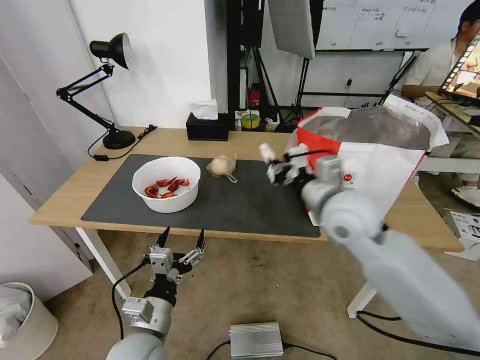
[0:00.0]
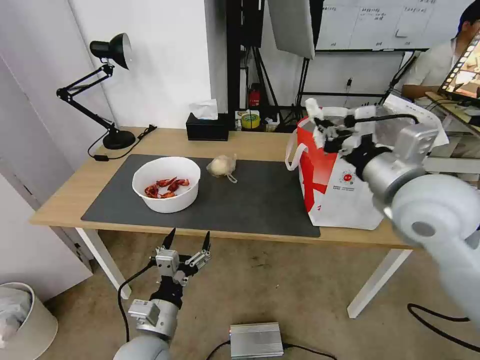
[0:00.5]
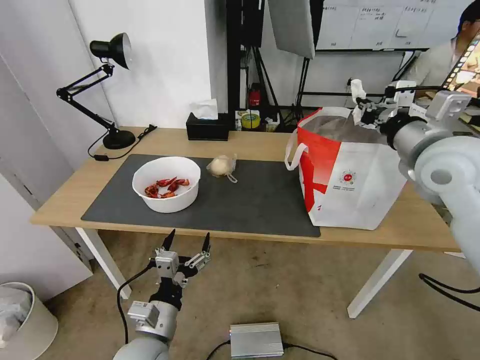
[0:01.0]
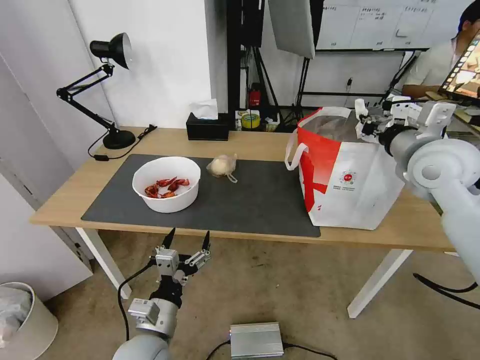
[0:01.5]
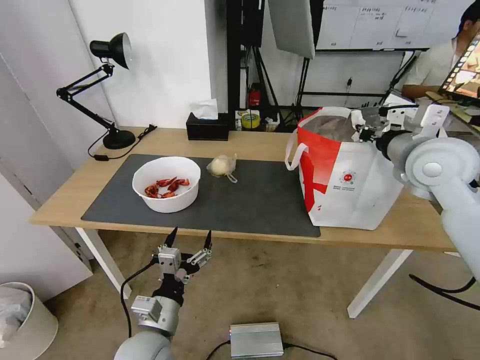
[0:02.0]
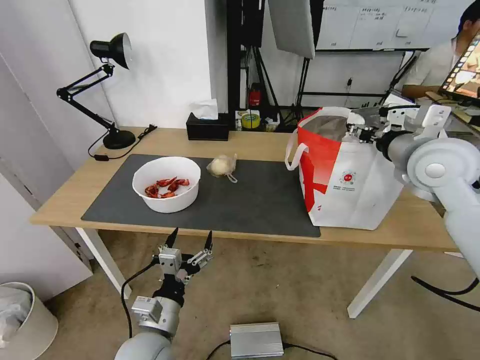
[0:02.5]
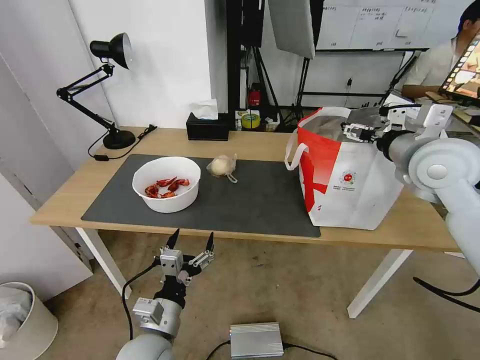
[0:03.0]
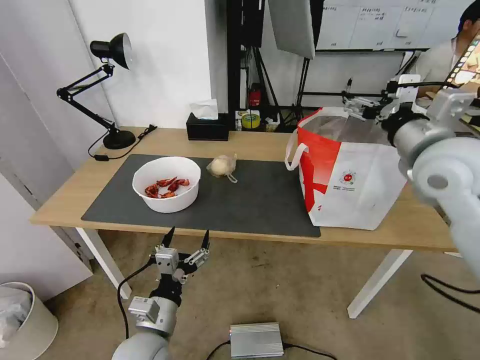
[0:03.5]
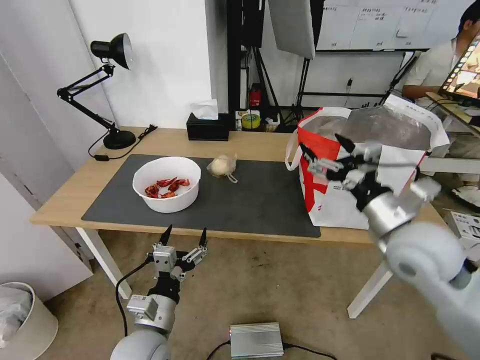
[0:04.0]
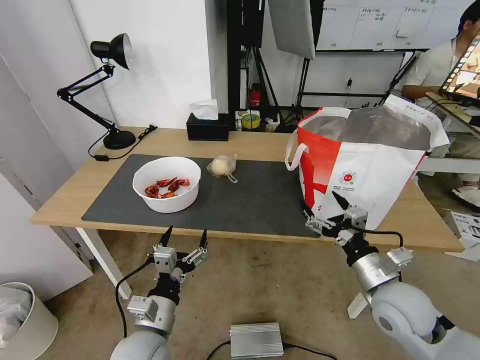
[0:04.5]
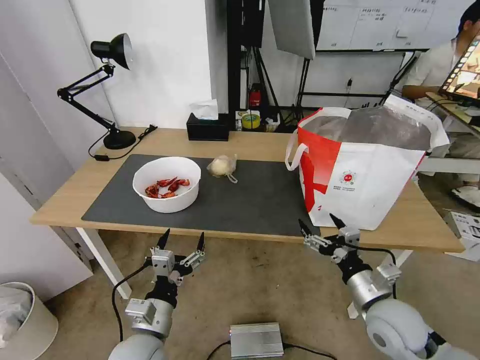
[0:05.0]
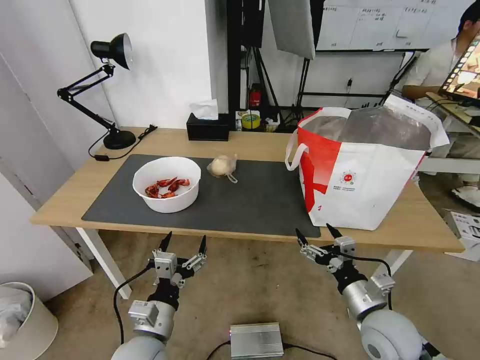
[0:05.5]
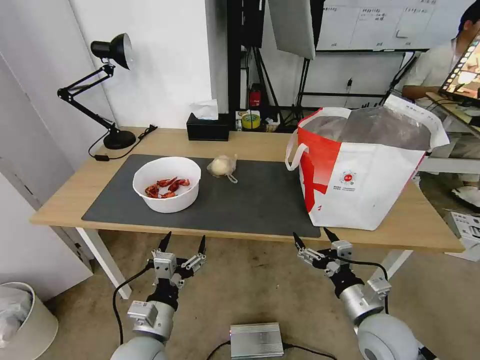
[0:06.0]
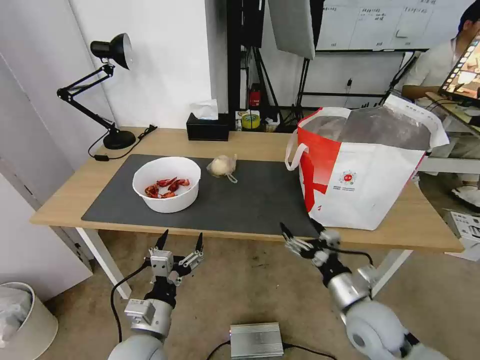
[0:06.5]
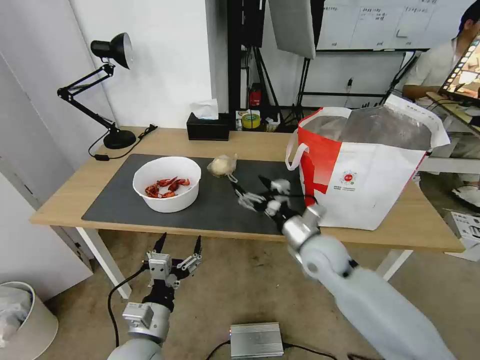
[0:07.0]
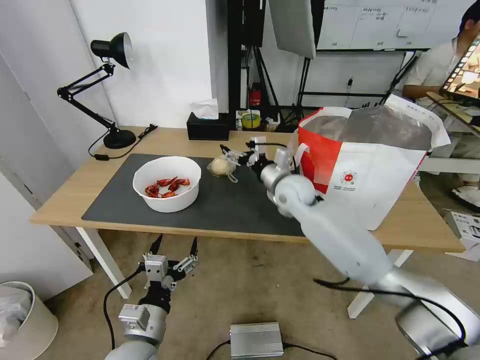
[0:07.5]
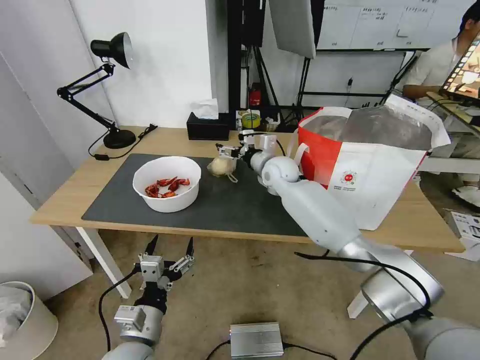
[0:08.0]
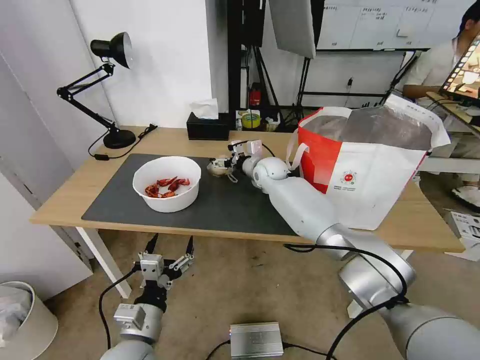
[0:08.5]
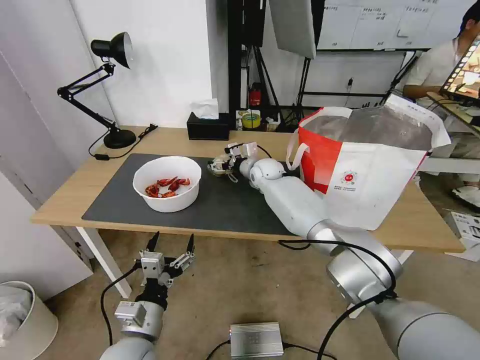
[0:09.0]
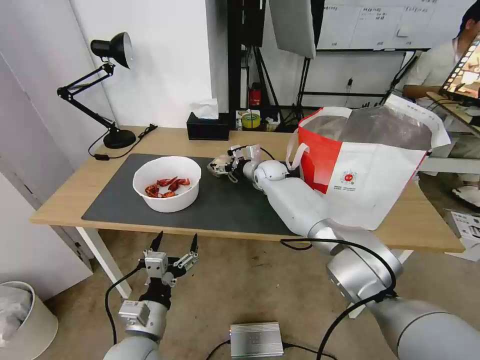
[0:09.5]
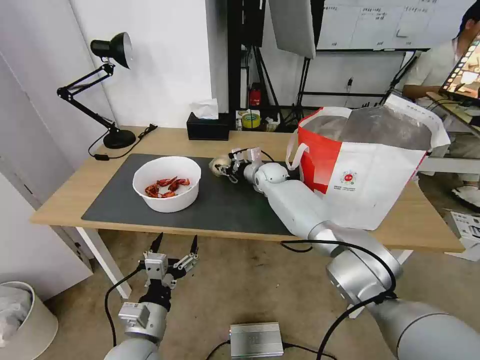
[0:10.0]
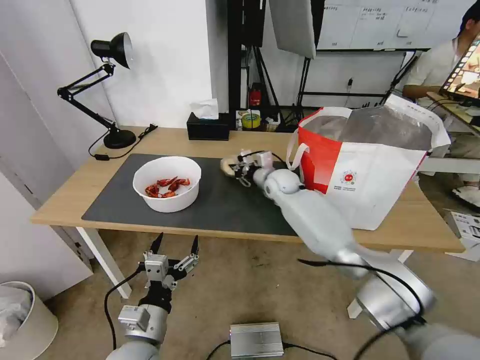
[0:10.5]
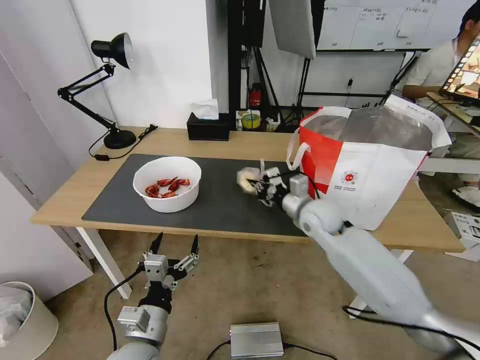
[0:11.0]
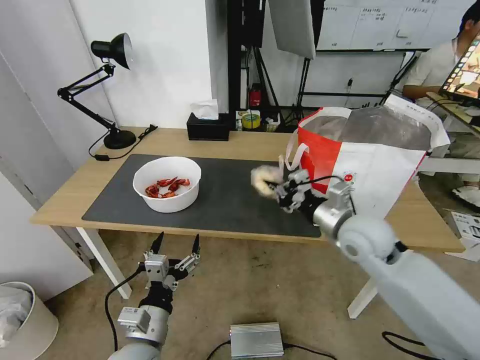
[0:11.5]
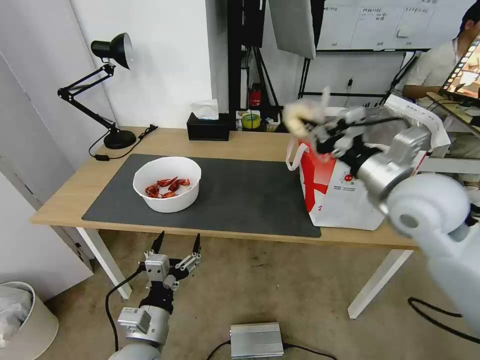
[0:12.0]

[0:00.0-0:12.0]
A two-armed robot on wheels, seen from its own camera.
Task of the whole recording: Pick up the trash from the table and place it into the takeout bag.
0:00.0 to 0:02.0: The right gripper travels to the right and upward by approximately 20 cm.
0:02.0 to 0:04.0: The right gripper travels backward and downward by some 15 cm, and opens.
0:04.0 to 0:06.0: The right gripper shifts some 20 cm downward and backward.
0:06.0 to 0:08.0: The right gripper shifts some 40 cm forward and to the left.
0:08.0 to 0:10.0: The right gripper is displaced forward and downward by about 10 cm, and closes its fingers.
0:10.0 to 0:12.0: The right gripper travels backward, upward and to the right by roughly 40 cm, and closes its fingers.

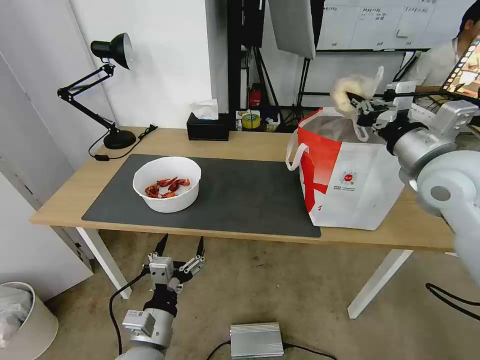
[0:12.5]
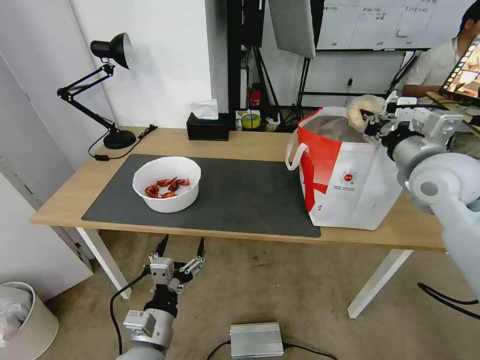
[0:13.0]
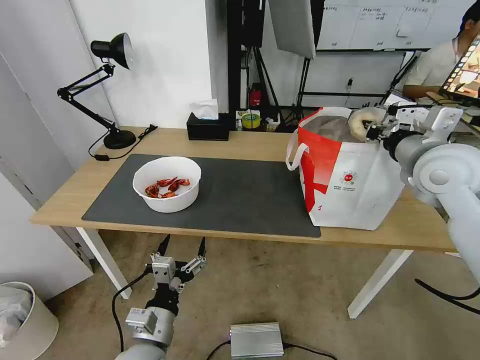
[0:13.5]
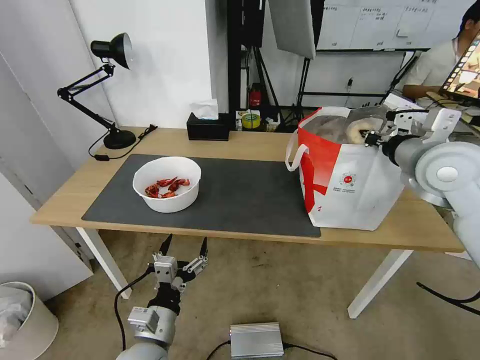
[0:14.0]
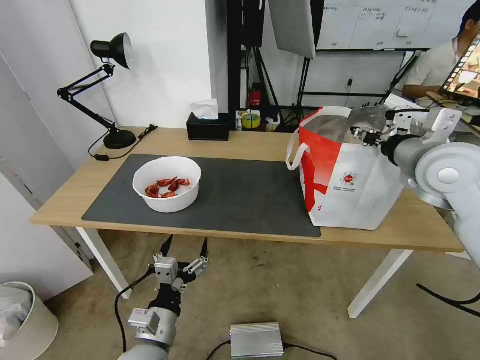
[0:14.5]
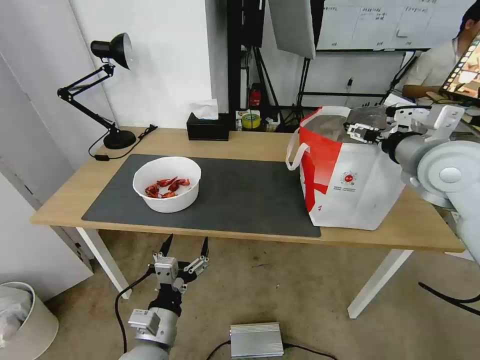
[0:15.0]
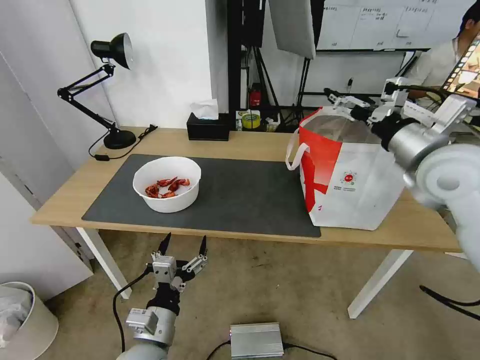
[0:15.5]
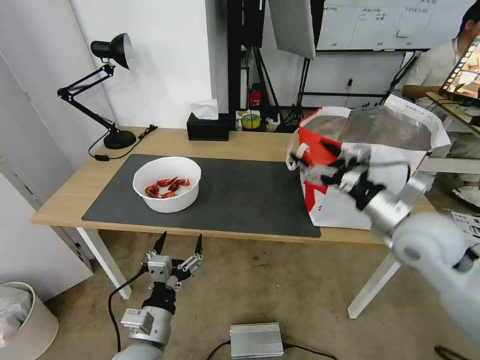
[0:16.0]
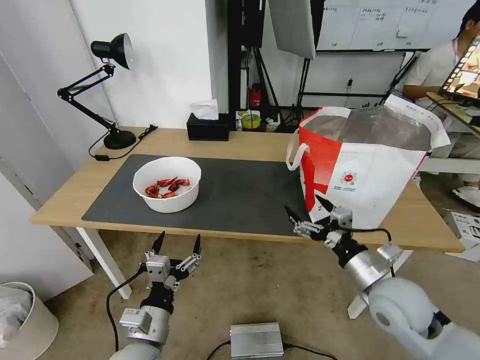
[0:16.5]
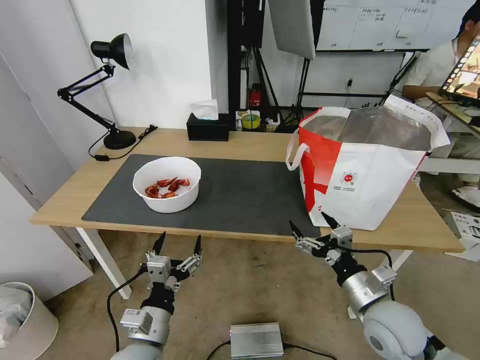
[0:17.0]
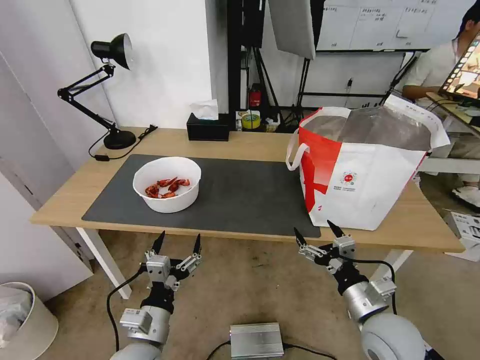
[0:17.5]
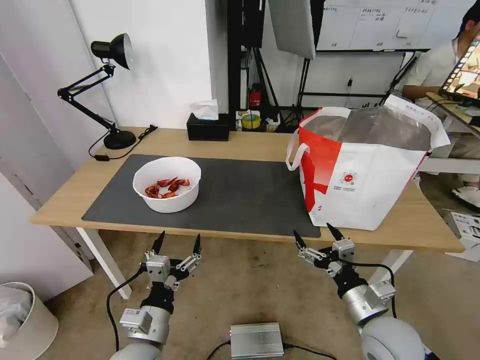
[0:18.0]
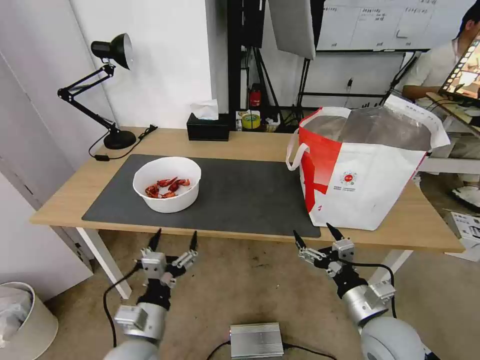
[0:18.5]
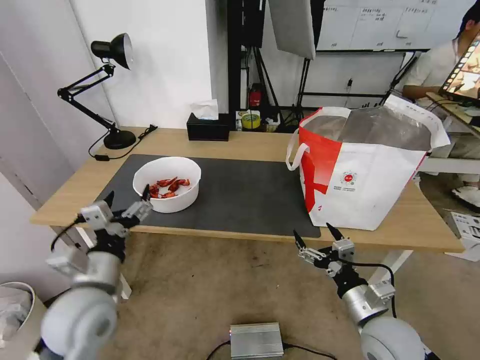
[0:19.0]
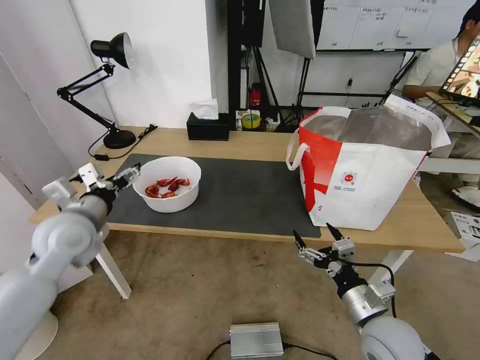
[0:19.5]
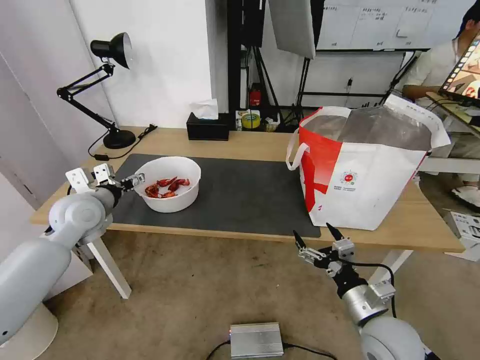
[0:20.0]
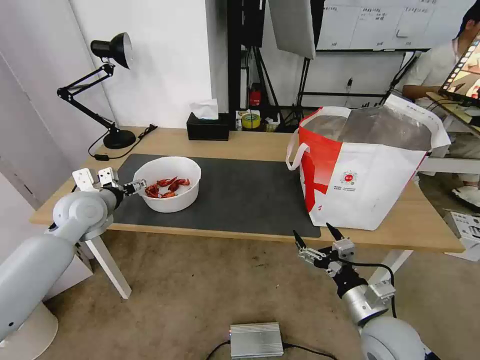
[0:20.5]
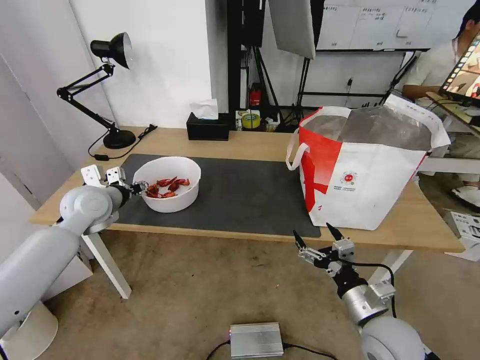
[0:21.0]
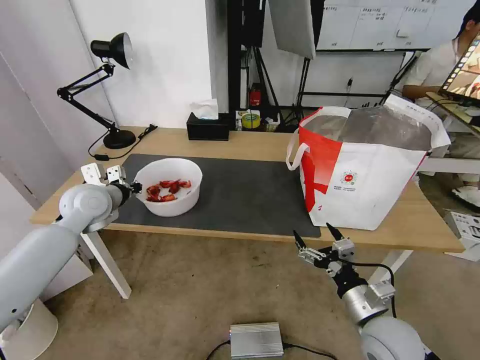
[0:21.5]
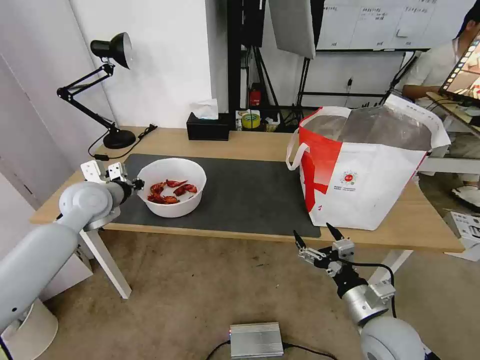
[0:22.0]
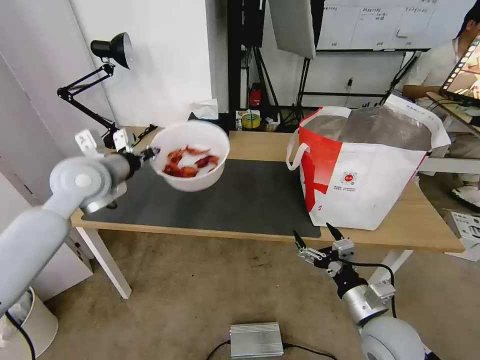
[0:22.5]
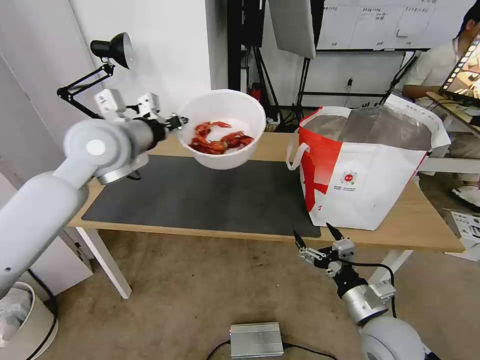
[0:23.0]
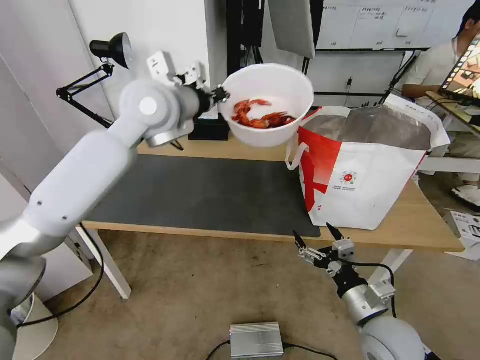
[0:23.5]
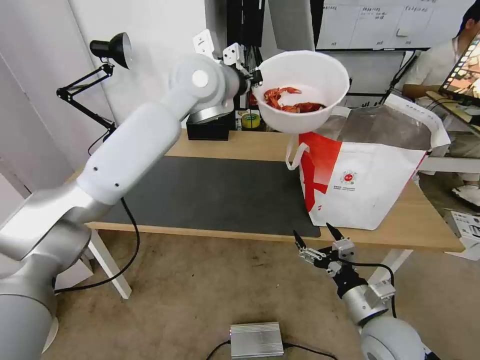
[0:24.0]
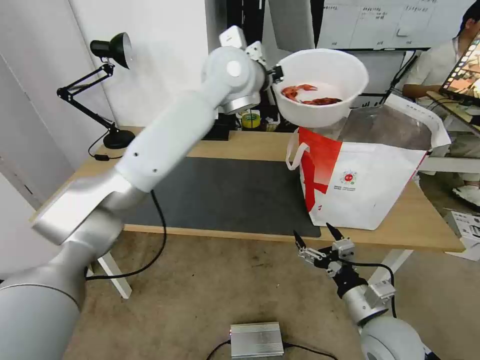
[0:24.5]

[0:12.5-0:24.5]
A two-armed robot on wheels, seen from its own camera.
Task of the whole recording: Pick up the trash from the table and place it into the takeout bag.
0:12.5 to 0:14.5: The right gripper opens its fingers.
0:14.5 to 0:16.5: The right gripper goes some 25 cm downward and backward, and opens.
0:16.5 to 0:18.5: The right gripper shifts about 10 cm downward and backward.
0:18.5 to 0:20.5: The left gripper moves forward, to the left and upward, roughly 35 cm.
0:20.5 to 0:22.5: The left gripper heads upward and to the right, covering about 10 cm, and closes up.
0:22.5 to 0:24.5: The left gripper shifts some 30 cm to the right, upward and forward.

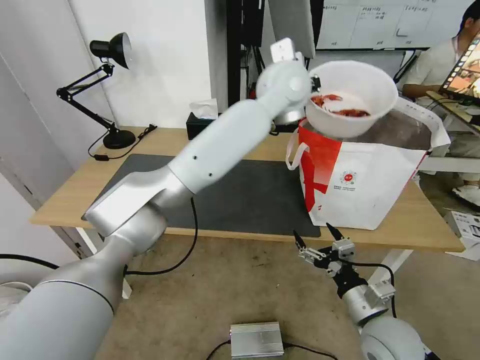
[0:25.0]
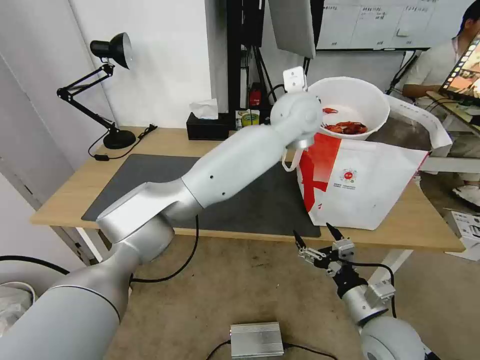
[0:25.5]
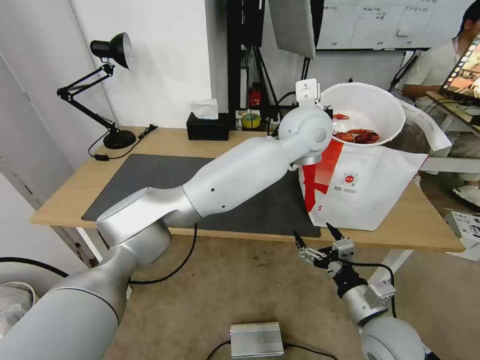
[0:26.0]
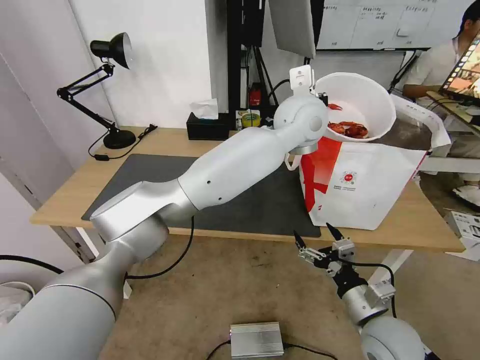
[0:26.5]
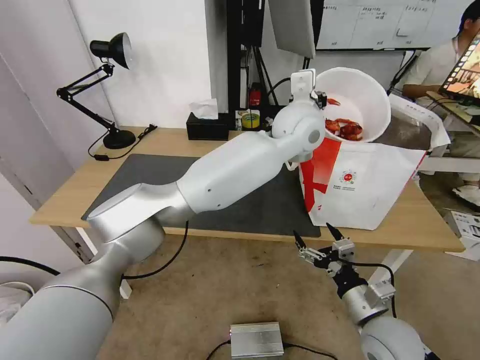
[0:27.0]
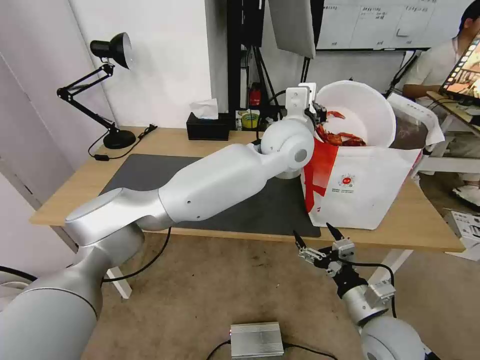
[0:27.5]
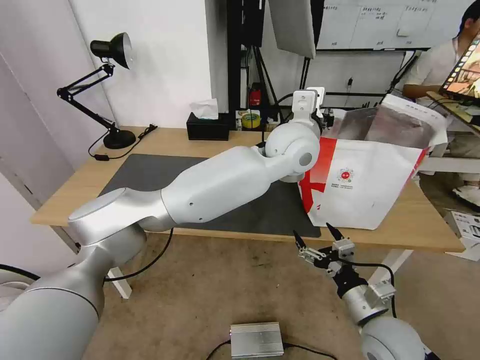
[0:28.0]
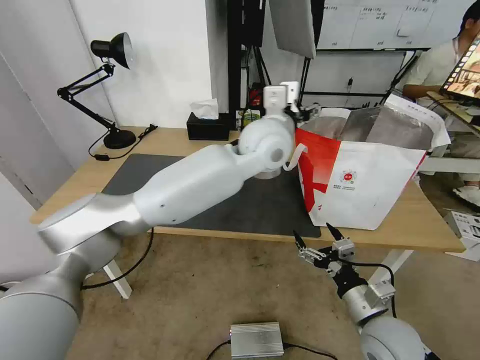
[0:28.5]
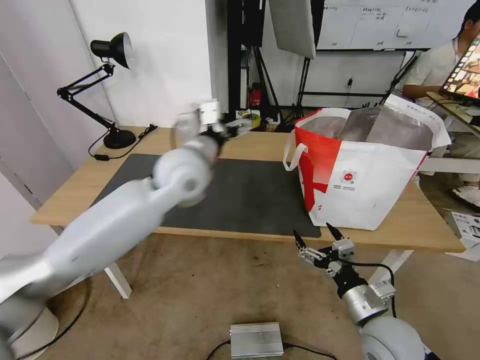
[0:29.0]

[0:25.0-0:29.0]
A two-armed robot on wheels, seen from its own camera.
Task of the whole recording: Pick up the trash from the table and place it into the takeout bag.
0:25.0 to 0:27.0: The left gripper heads downward, covering roughly 5 cm.
0:27.0 to 0:29.0: The left gripper heads to the left, covering roughly 20 cm, and opens its fingers.
